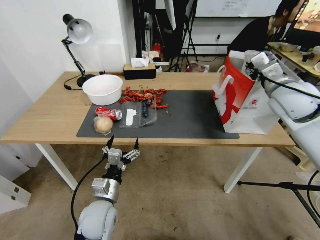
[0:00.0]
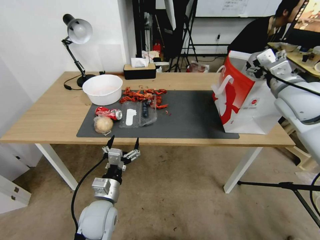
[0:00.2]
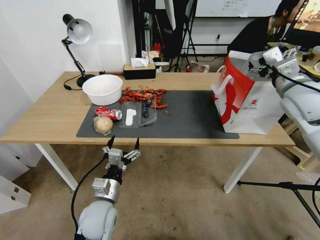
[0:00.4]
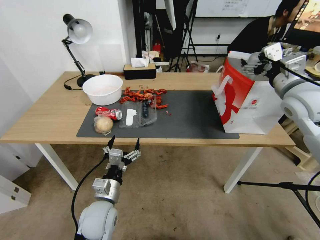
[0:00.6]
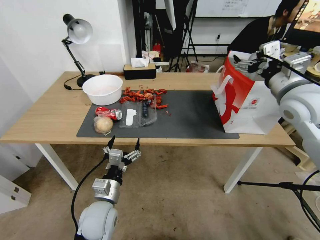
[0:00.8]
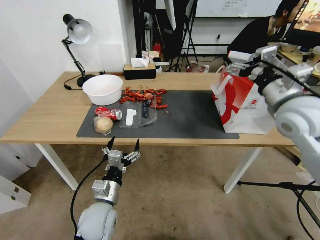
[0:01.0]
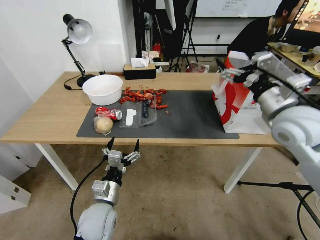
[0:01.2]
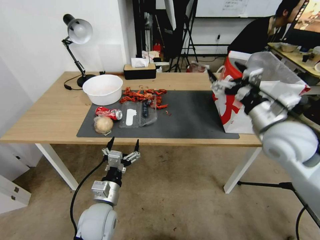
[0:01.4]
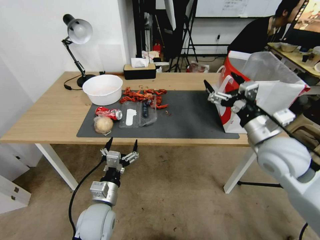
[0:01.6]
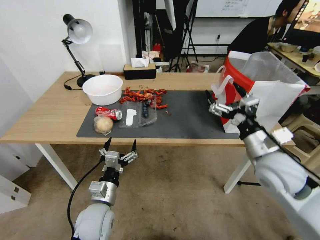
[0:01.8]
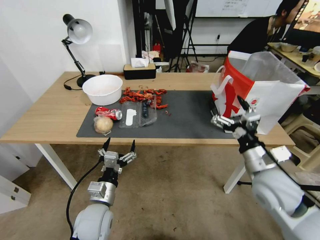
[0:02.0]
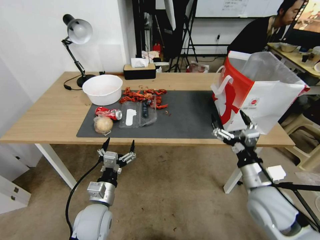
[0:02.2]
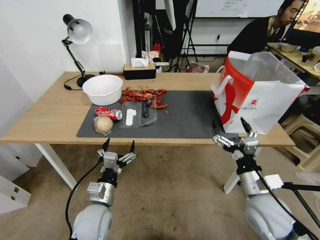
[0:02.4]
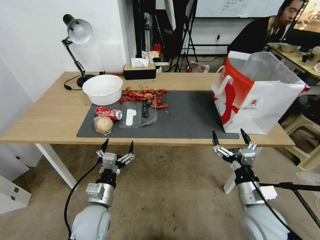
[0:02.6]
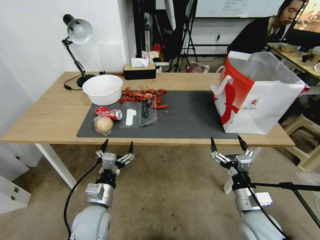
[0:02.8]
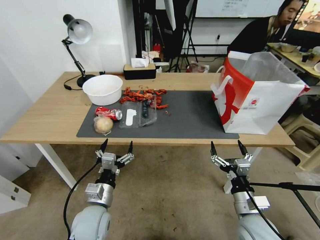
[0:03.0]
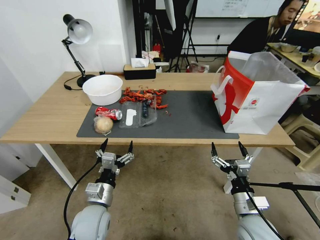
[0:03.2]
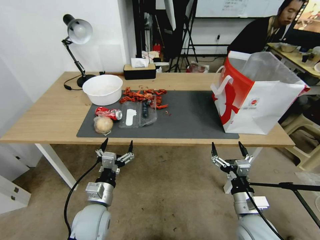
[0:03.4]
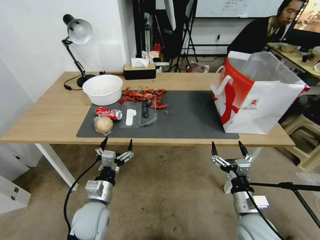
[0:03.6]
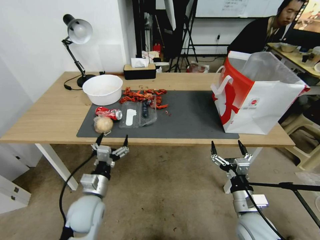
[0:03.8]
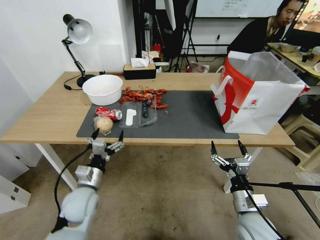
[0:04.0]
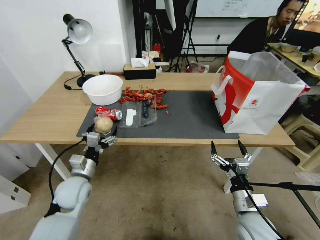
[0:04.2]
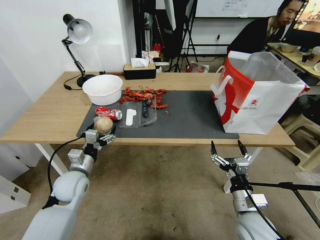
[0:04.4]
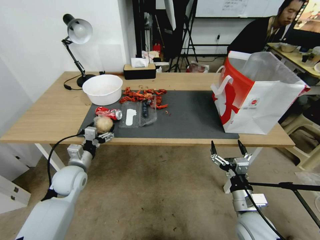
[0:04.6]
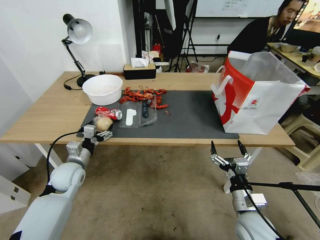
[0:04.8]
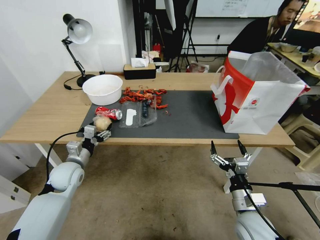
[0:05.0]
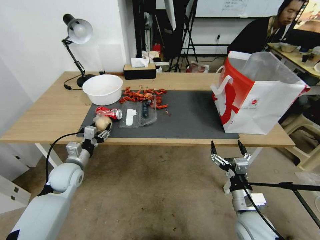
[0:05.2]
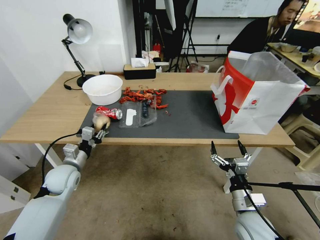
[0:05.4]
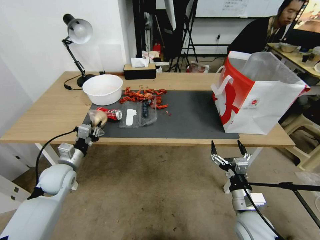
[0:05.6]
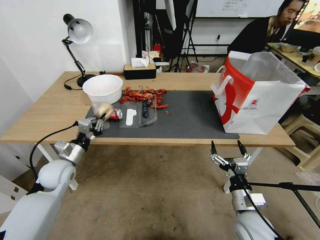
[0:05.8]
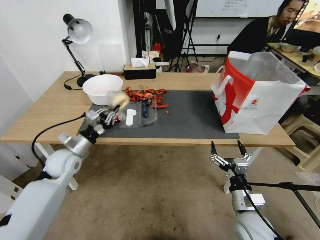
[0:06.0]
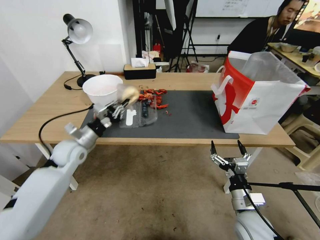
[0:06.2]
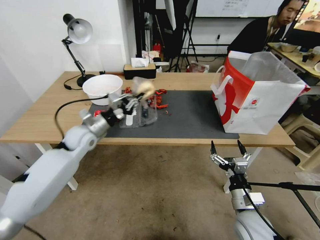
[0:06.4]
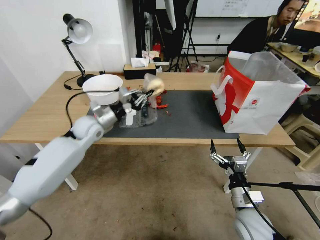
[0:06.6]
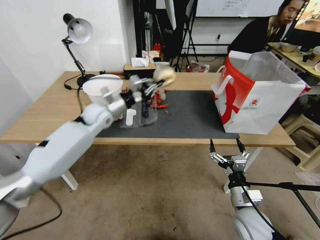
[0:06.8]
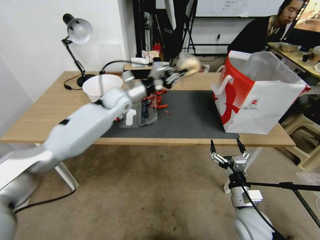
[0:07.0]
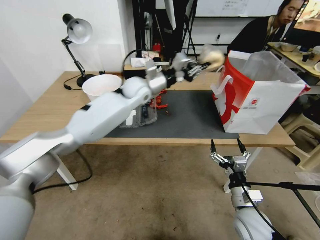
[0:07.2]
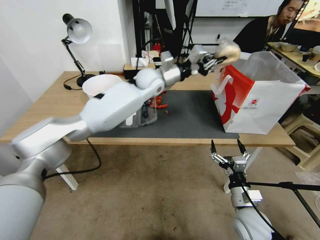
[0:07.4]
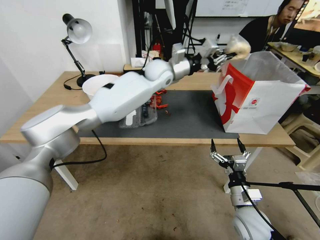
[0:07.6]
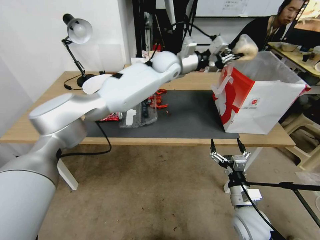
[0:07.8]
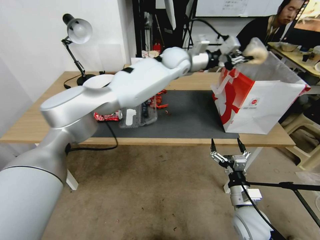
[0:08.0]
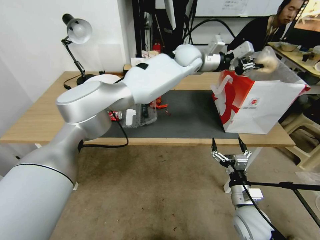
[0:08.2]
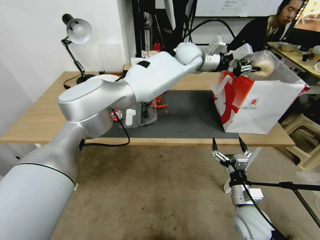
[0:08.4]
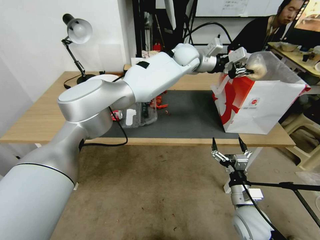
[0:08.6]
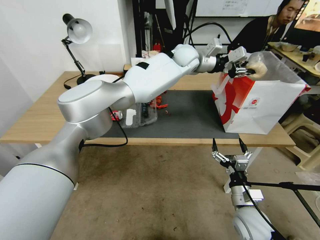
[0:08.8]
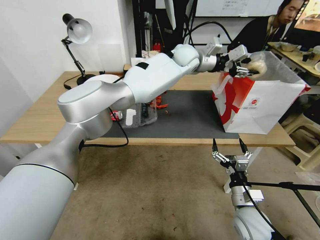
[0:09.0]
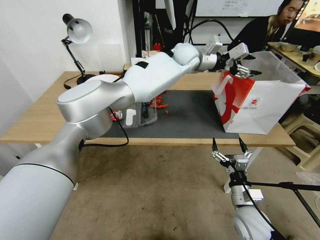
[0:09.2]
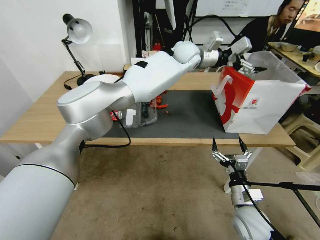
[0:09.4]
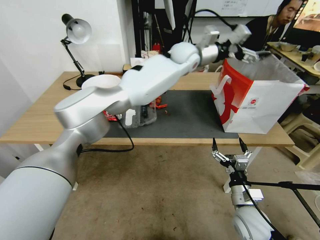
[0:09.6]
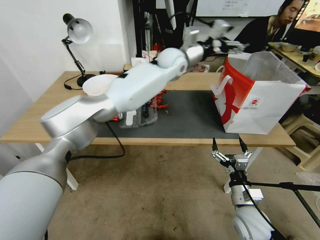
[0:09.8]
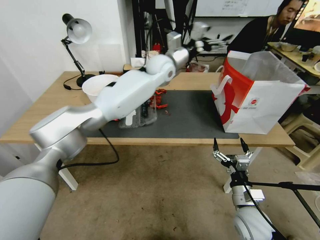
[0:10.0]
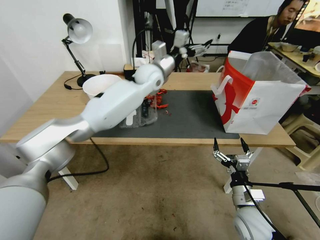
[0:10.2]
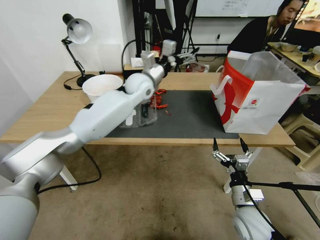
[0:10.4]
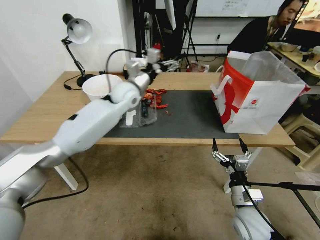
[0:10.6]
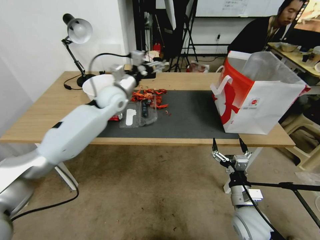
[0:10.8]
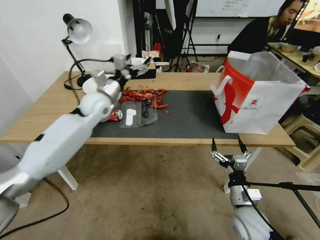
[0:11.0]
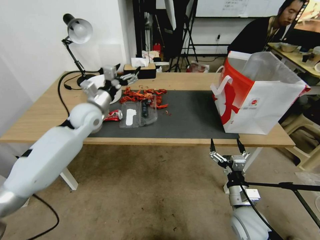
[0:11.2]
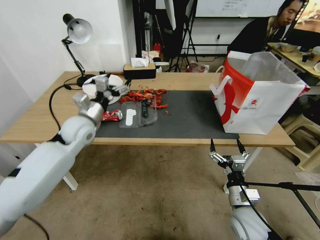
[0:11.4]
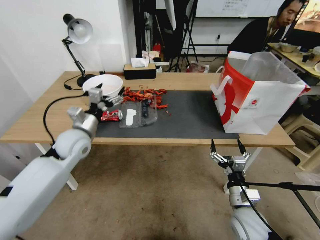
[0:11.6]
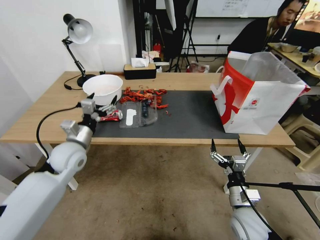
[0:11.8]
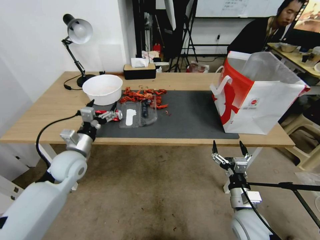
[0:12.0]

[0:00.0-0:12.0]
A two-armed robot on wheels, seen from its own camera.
0:00.0 to 0:01.6: The right gripper shifts some 15 cm backward, downward and to the left, and opens.
0:01.6 to 0:03.0: The right gripper shifts about 25 cm downward and backward.
0:03.0 to 0:04.4: The left gripper is displaced forward and to the left by about 15 cm.
0:04.4 to 0:06.0: The left gripper goes roughly 5 cm forward, and closes.
0:06.0 to 0:07.6: The left gripper is displaced to the right, forward and upward by about 40 cm.
0:07.6 to 0:09.0: The left gripper moves to the right, approximately 10 cm, and opens up.
0:09.0 to 0:10.4: The left gripper travels to the left and downward by some 20 cm, and opens.
0:10.4 to 0:12.0: The left gripper shifts approximately 35 cm backward, to the left and downward.

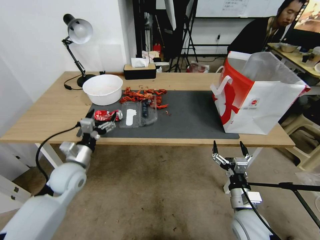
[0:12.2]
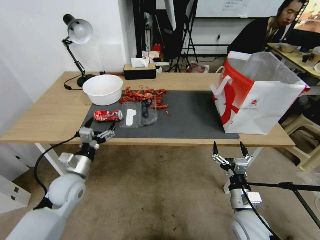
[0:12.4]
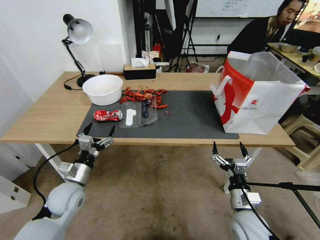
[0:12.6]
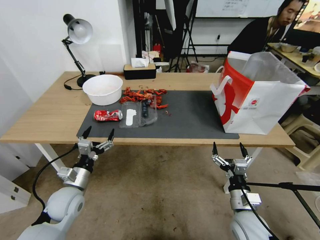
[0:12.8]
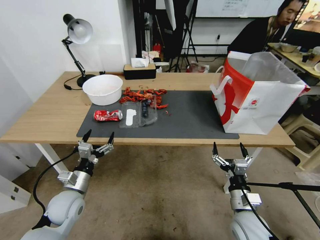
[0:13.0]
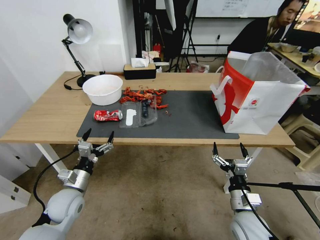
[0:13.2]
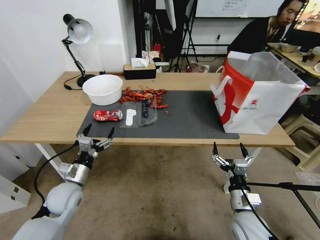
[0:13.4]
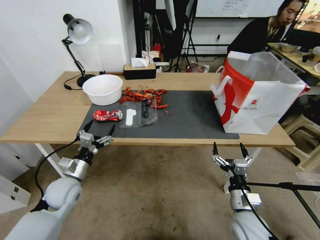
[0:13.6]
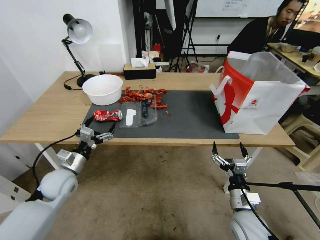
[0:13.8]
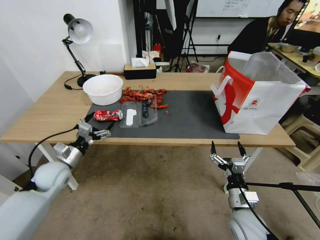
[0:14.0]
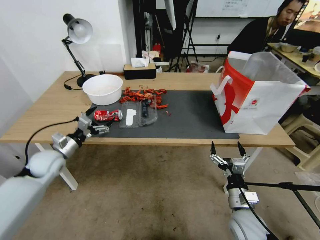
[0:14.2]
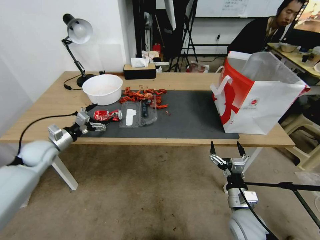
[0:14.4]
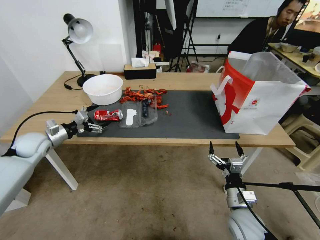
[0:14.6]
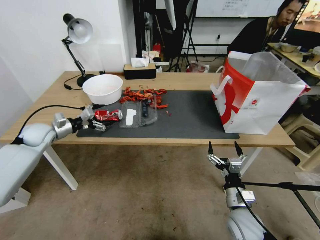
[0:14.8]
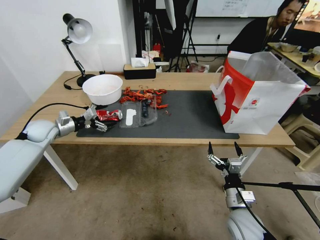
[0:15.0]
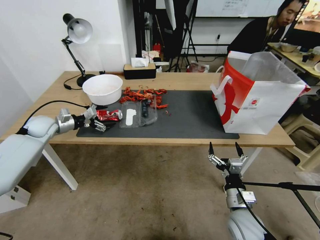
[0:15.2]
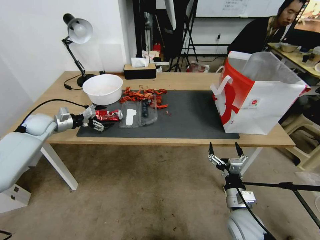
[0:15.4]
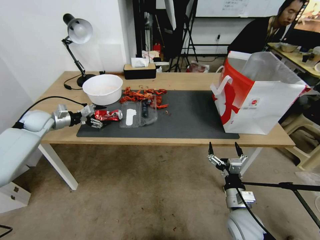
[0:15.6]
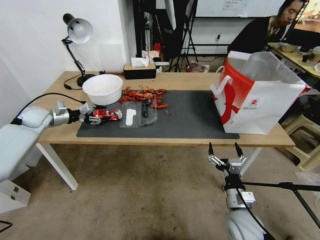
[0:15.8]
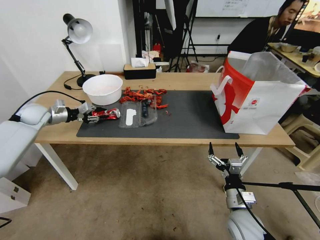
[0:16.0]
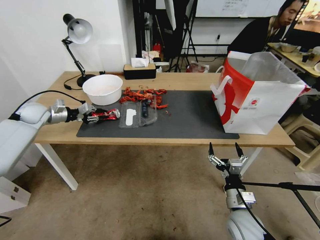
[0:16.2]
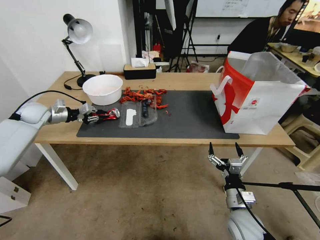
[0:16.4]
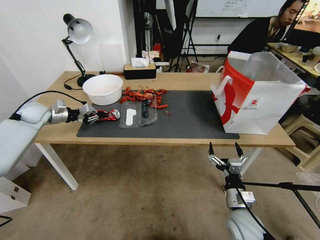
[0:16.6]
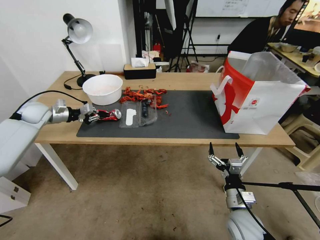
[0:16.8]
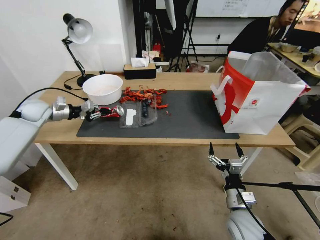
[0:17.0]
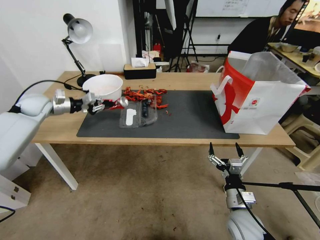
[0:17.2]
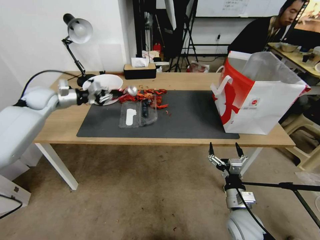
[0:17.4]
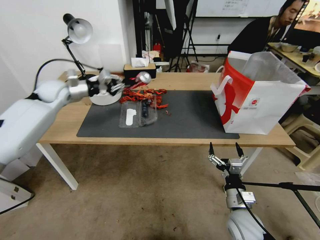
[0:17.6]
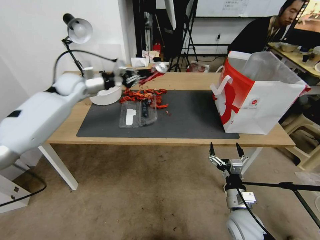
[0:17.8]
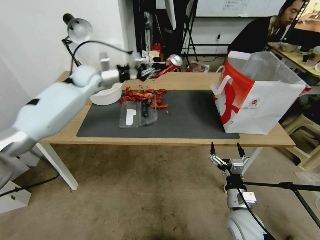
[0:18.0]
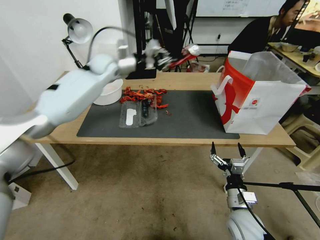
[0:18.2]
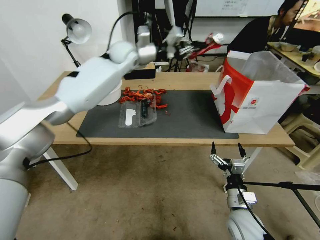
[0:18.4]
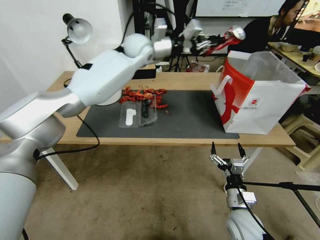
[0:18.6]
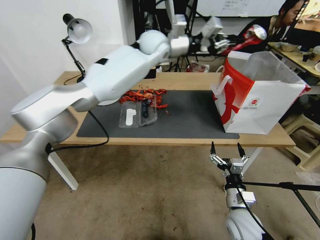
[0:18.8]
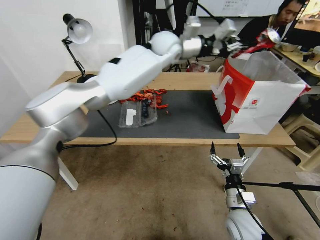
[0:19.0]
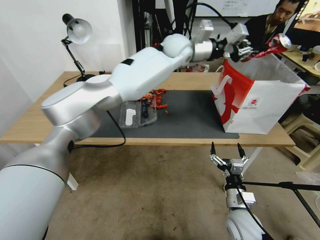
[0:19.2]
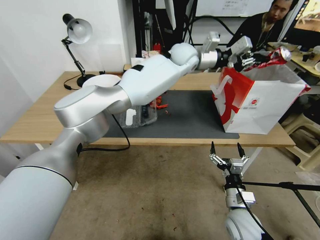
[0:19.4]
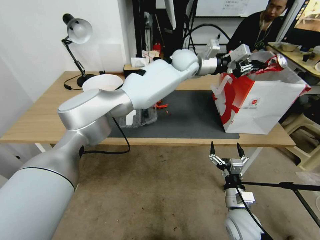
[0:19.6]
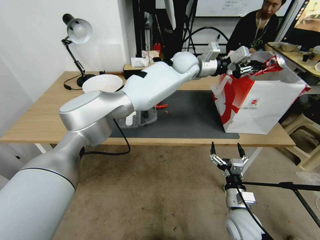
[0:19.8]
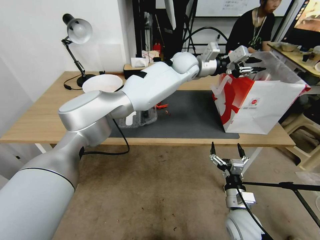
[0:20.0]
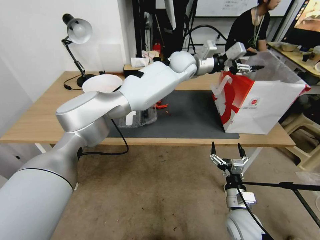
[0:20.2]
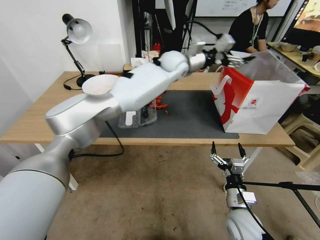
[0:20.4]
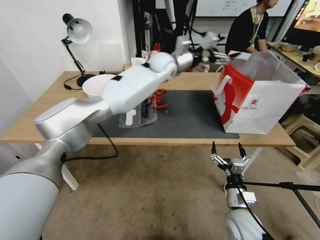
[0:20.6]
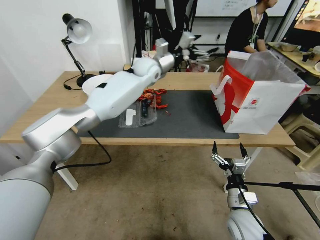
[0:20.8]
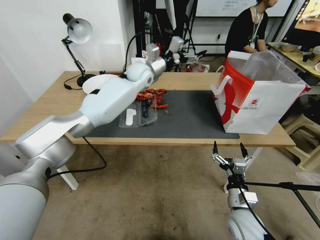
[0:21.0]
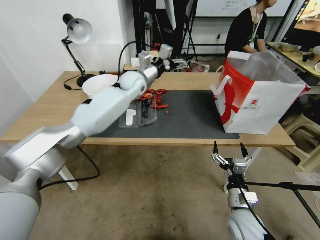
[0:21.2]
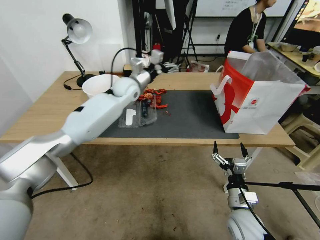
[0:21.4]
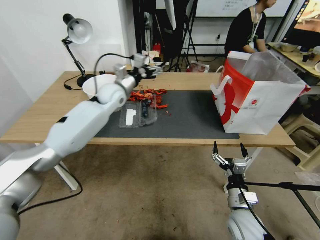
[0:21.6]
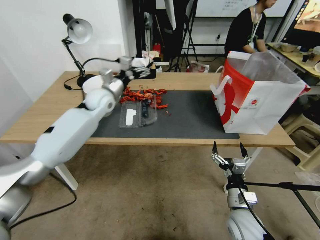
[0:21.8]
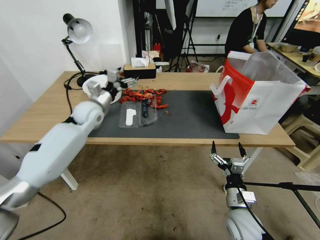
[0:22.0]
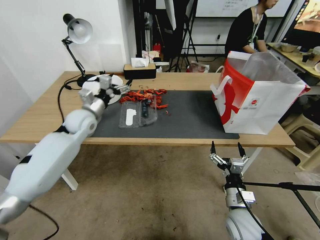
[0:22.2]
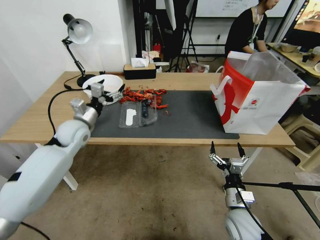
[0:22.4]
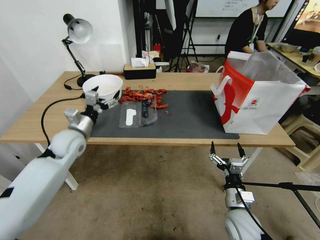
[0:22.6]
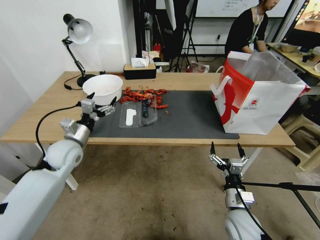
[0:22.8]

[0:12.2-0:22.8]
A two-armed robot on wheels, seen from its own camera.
0:13.8 to 0:15.2: The left gripper heads forward, to the left and upward, covering roughly 25 cm.
0:15.2 to 0:16.8: The left gripper moves roughly 5 cm, and closes its fingers.
0:16.8 to 0:18.2: The left gripper travels to the right and upward by approximately 30 cm.
0:18.2 to 0:19.8: The left gripper goes some 25 cm to the right.
0:19.8 to 0:21.2: The left gripper moves to the left, approximately 20 cm, and opens its fingers.
0:21.2 to 0:22.8: The left gripper heads backward, to the left and downward, covering roughly 35 cm.
